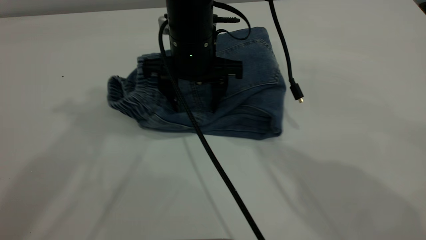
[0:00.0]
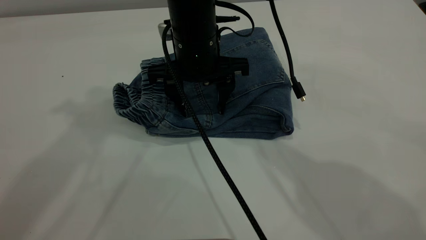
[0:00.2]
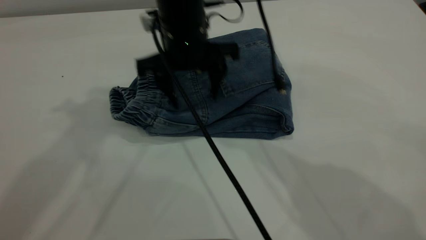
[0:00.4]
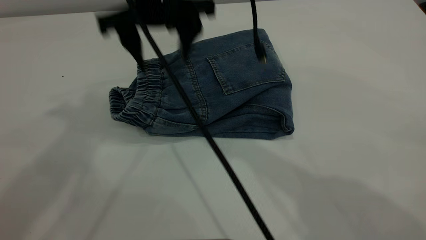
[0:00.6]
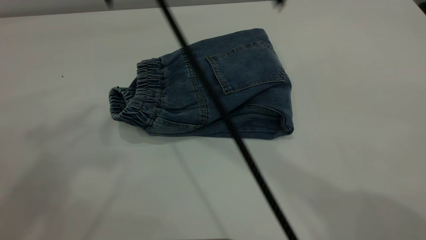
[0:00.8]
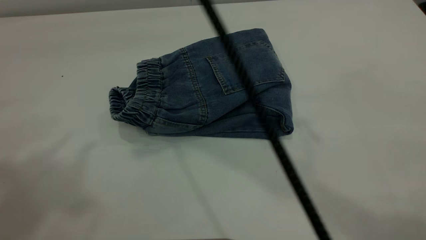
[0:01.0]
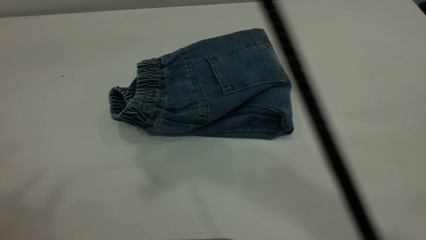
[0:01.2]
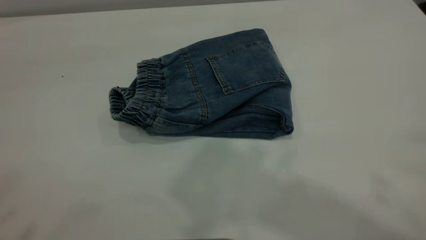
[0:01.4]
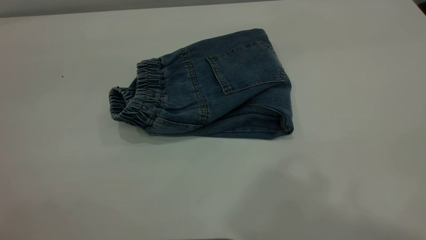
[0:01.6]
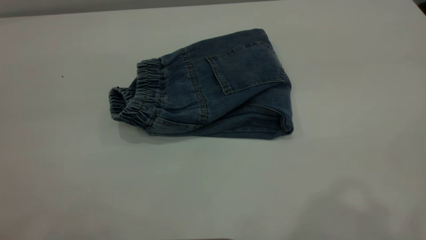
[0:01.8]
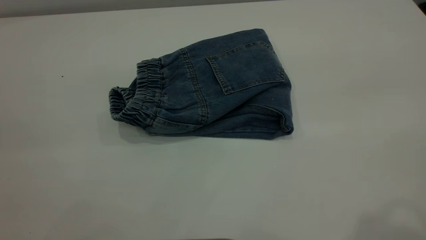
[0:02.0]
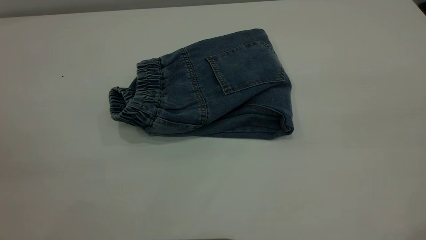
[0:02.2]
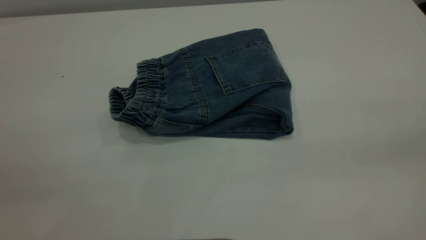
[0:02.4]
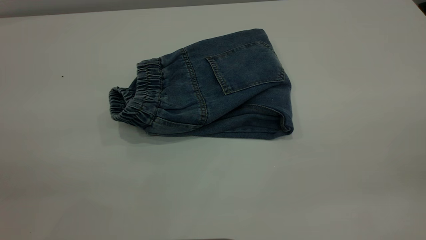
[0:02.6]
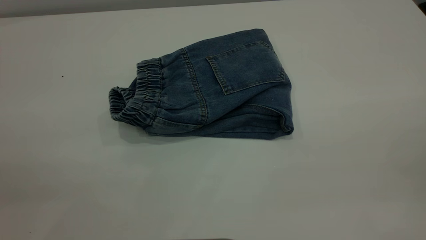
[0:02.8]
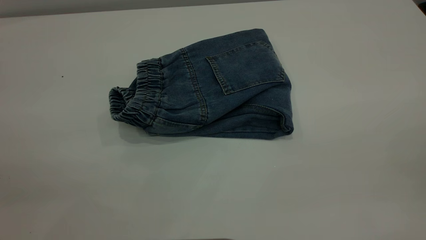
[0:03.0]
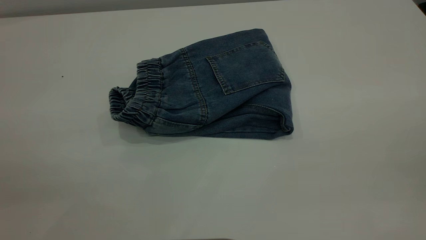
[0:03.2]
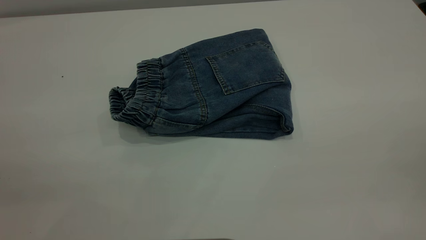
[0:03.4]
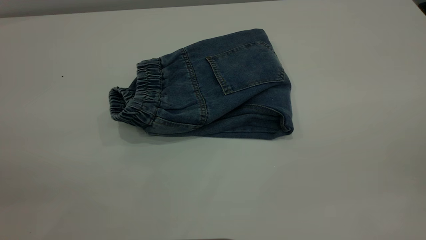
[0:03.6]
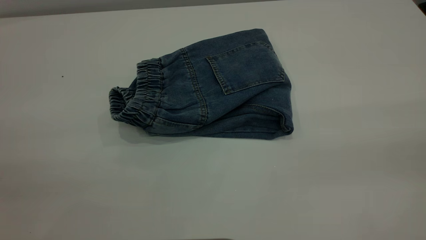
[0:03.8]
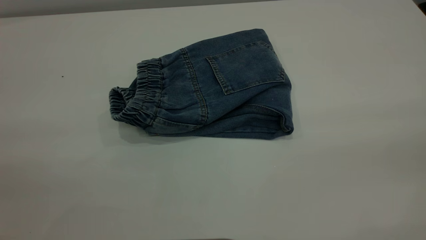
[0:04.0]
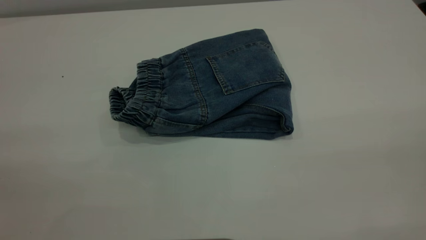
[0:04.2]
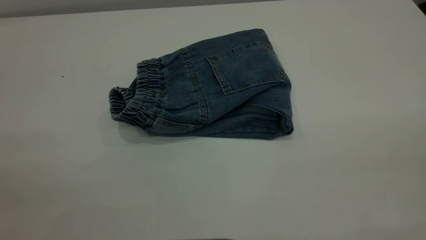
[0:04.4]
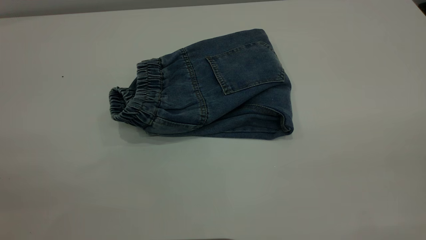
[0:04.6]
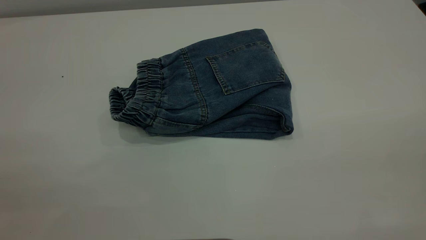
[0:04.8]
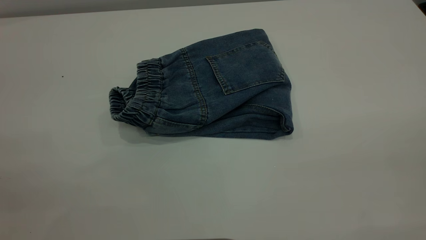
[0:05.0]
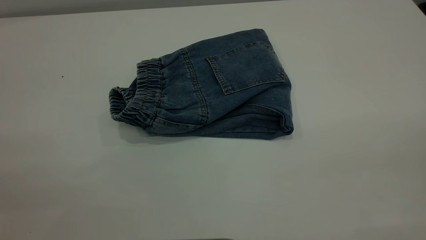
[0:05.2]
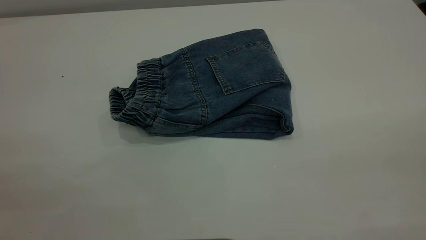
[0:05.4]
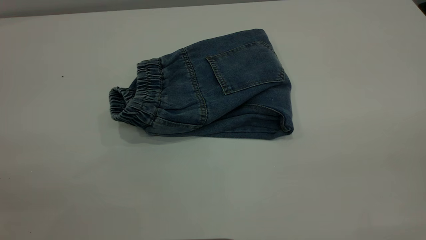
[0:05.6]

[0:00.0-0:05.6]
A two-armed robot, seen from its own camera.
0:00.0 to 0:01.4: The right gripper moves upward and backward, approximately 40 cm, while the left gripper travels backward and upward by some 25 cm.

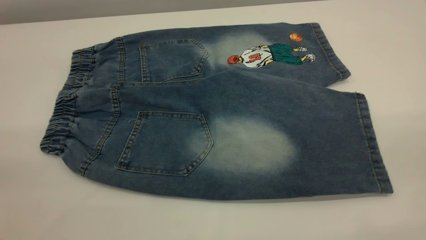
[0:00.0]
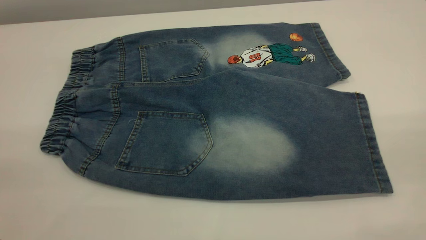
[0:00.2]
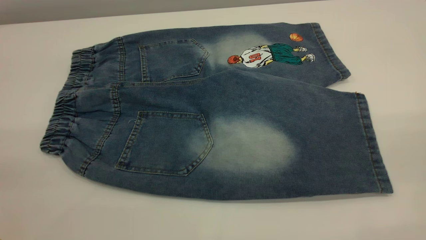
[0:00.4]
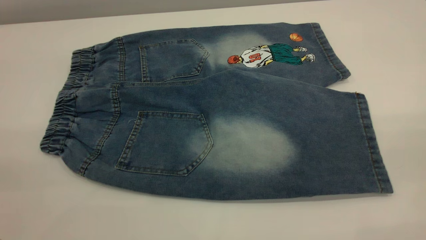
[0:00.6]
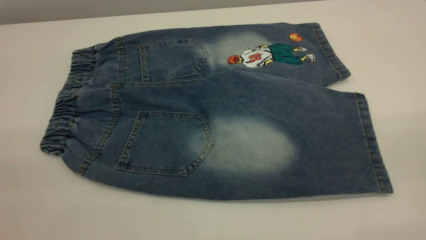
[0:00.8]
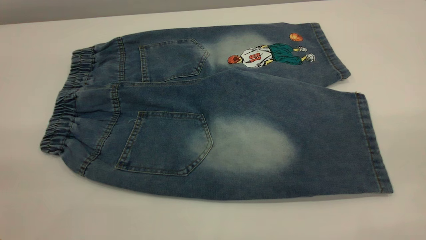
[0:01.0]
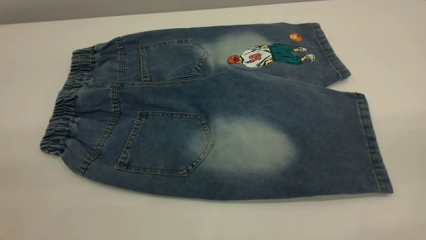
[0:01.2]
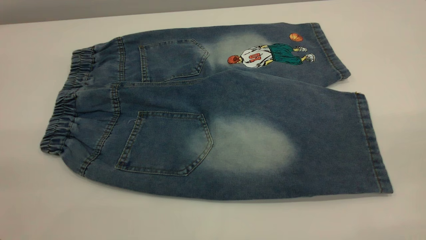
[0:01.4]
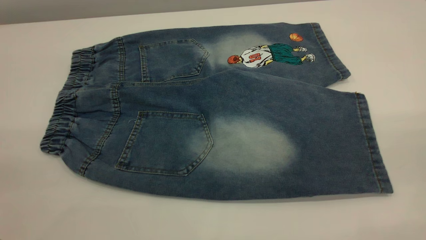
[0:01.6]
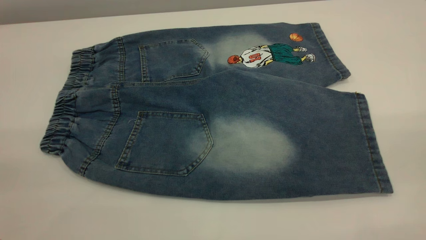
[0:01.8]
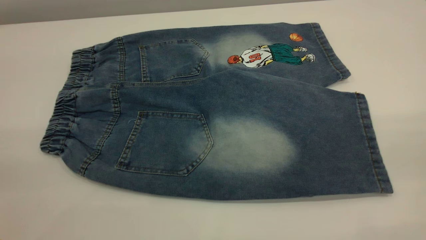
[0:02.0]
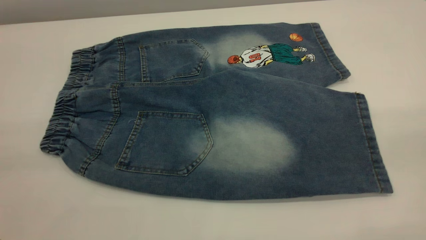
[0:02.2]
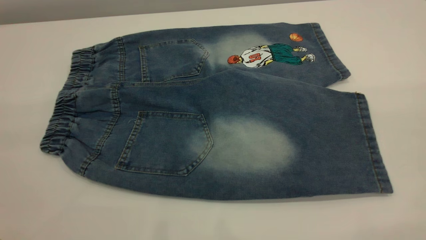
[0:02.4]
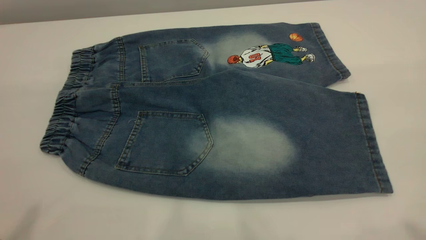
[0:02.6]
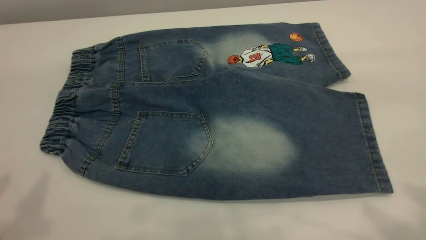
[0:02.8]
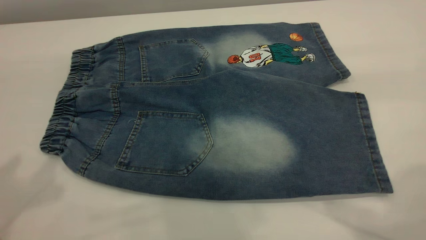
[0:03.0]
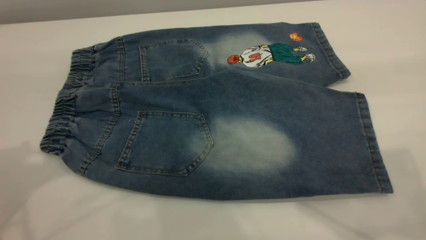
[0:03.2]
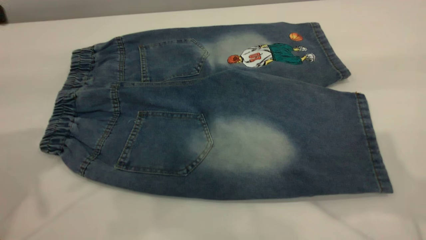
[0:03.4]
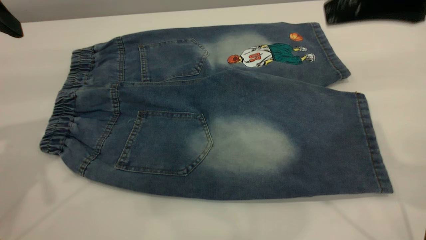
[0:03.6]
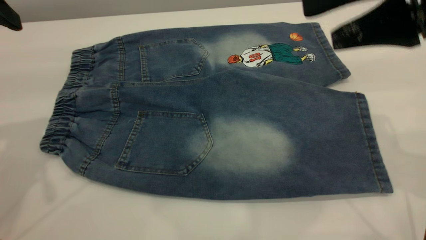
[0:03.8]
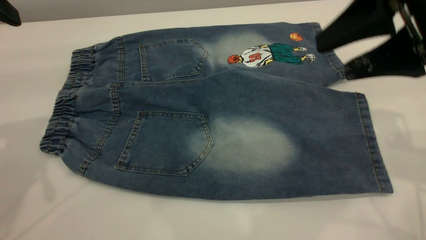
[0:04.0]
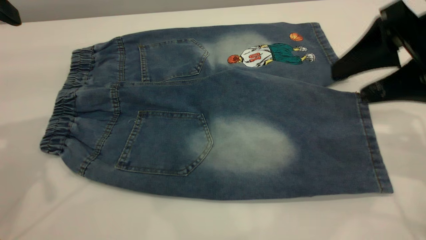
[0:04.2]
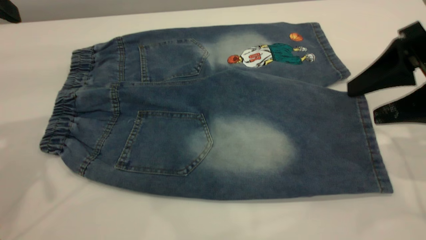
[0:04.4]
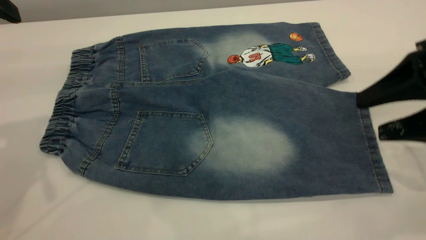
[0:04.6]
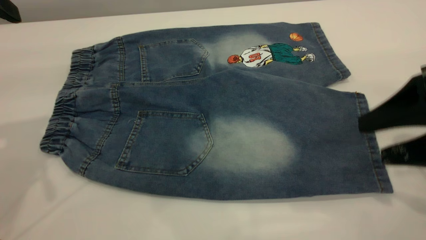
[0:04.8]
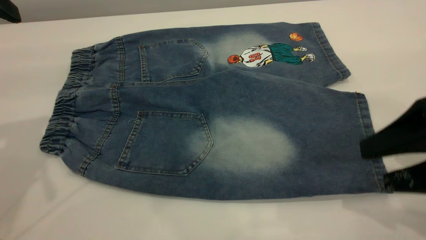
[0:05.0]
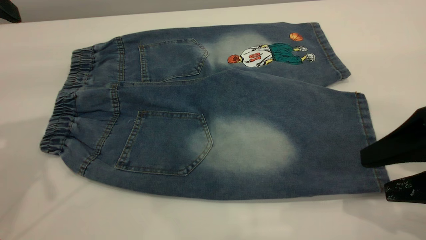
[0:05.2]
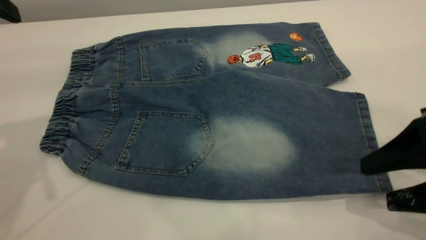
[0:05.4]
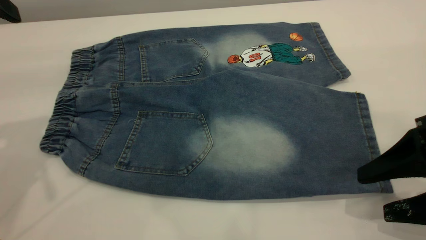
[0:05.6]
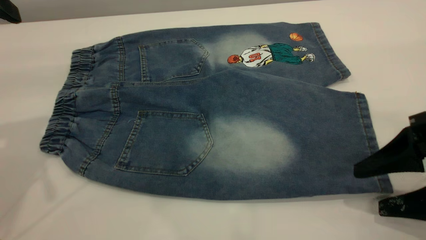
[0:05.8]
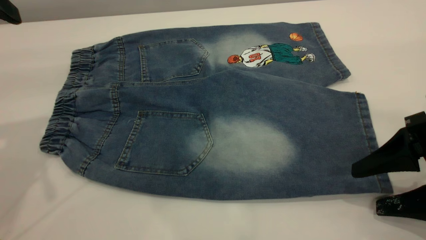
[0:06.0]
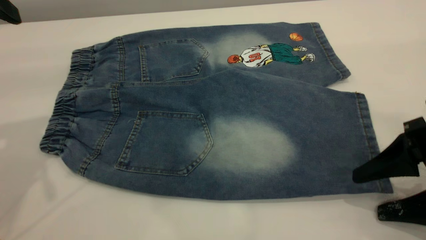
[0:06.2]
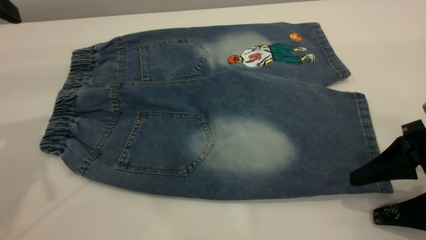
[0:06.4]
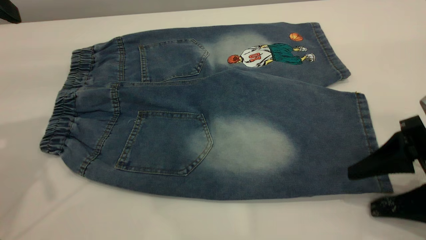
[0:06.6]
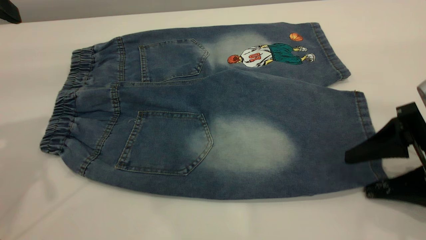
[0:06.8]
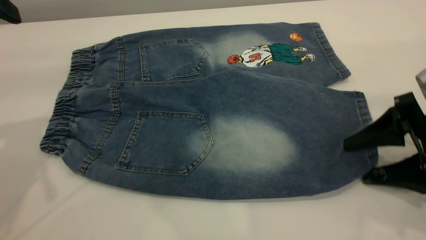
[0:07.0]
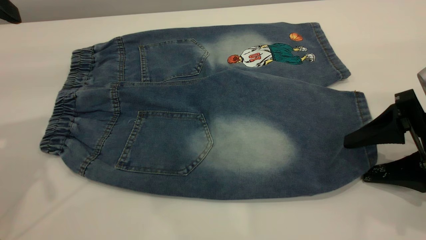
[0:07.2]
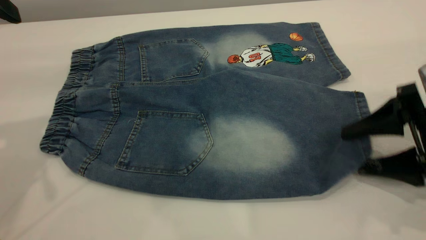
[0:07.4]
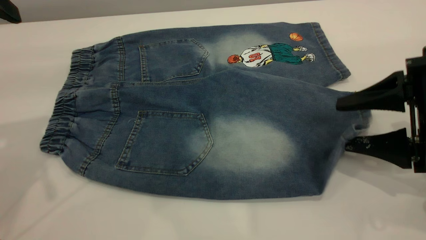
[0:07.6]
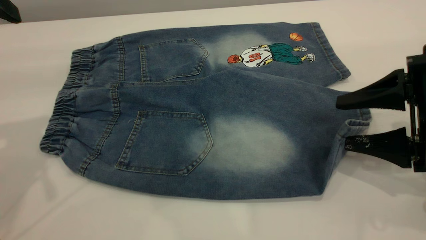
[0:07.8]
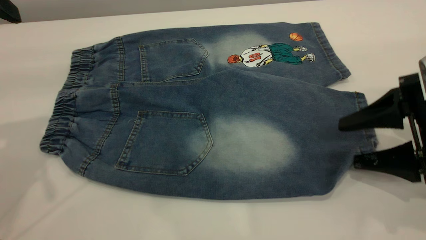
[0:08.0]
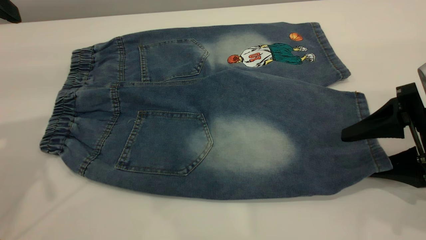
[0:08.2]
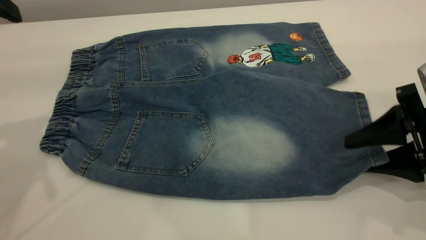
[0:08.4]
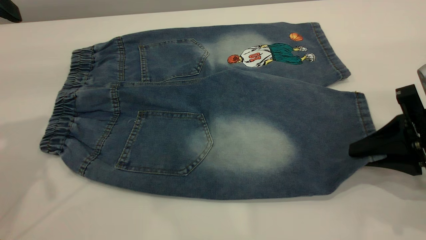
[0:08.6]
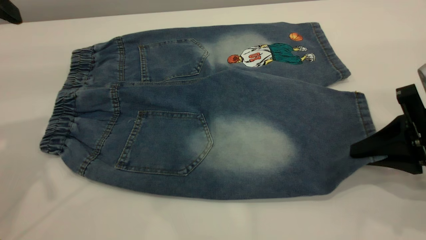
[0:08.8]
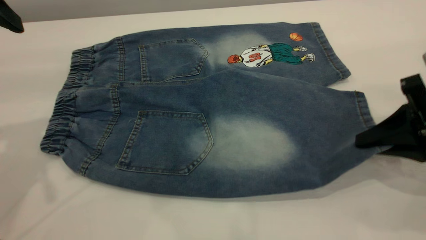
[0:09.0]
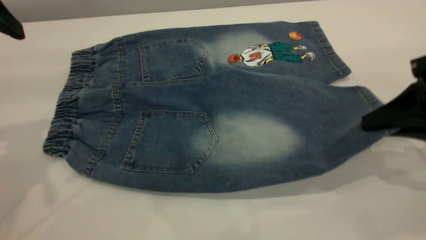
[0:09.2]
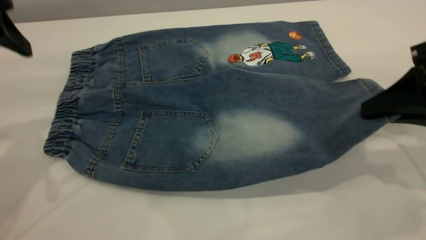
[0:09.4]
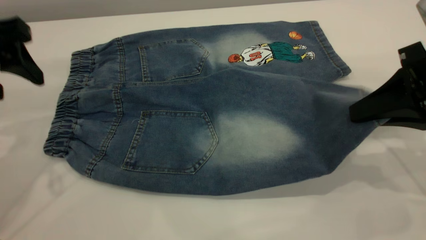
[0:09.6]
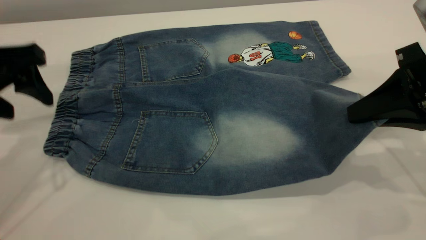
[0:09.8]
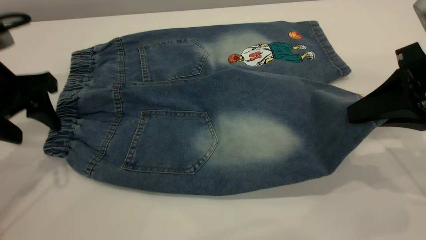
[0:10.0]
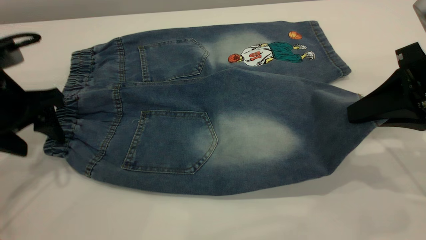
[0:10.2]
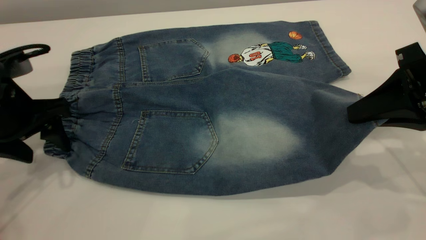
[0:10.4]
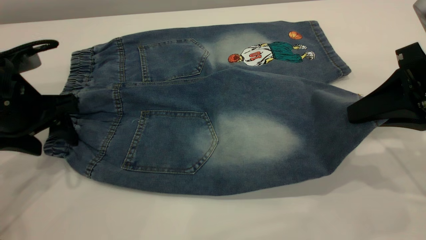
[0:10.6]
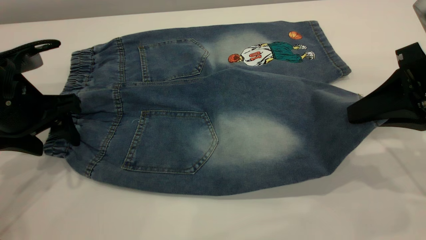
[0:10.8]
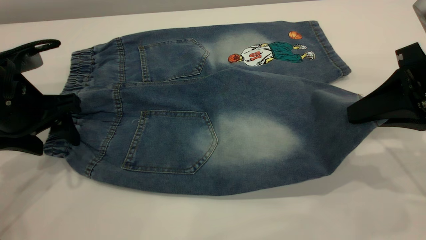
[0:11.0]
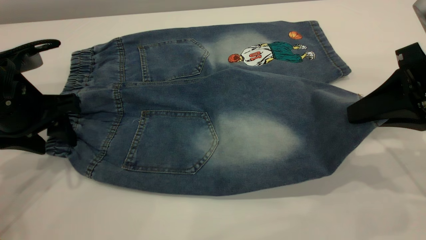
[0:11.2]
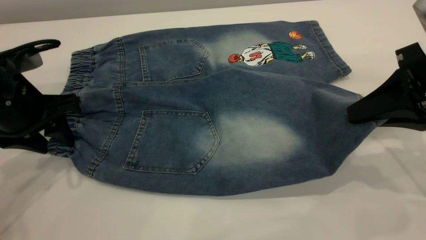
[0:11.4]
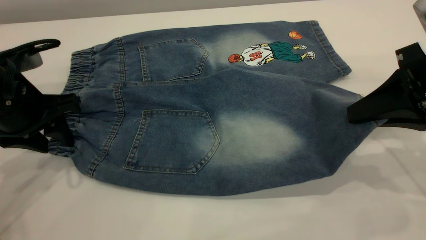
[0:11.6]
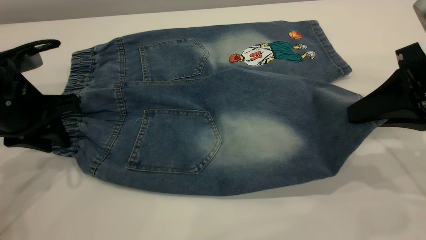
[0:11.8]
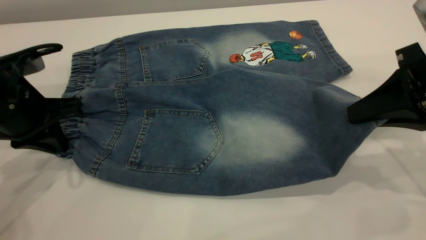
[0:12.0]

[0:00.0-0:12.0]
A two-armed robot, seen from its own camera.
0:00.0 to 0:01.6: Both grippers stay put.
0:01.6 to 0:03.0: The left gripper is displaced forward by roughly 20 cm. The right gripper shifts roughly 20 cm forward and to the left.
0:03.0 to 0:04.4: The right gripper moves downward and forward, about 20 cm. The left gripper shifts about 10 cm forward and downward.
0:04.4 to 0:06.0: The right gripper is displaced downward and backward by approximately 10 cm.
0:06.0 to 0:07.6: The grippers move only a little.
0:07.6 to 0:09.0: The right gripper closes up.
0:09.0 to 0:10.4: The right gripper shifts by about 5 cm. The left gripper is displaced downward by about 15 cm.
0:10.4 to 0:12.0: The left gripper closes up.
